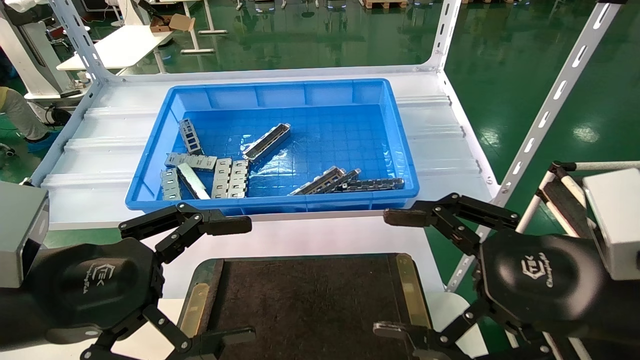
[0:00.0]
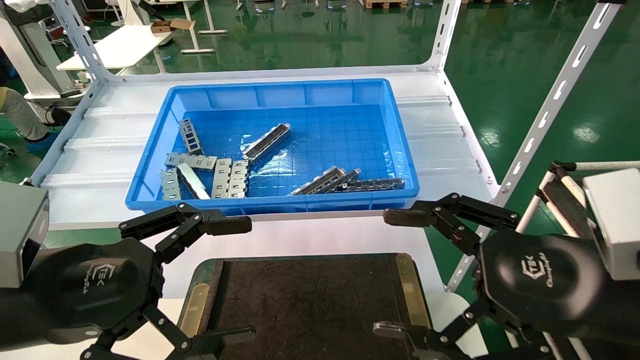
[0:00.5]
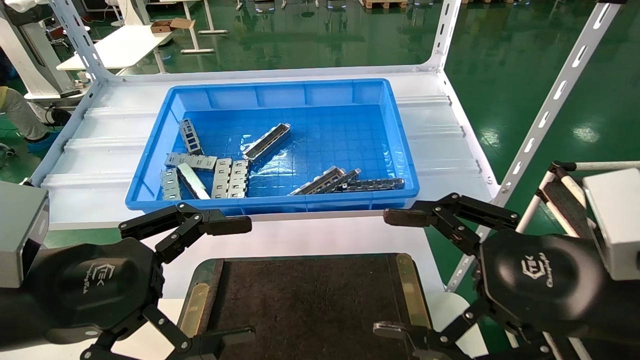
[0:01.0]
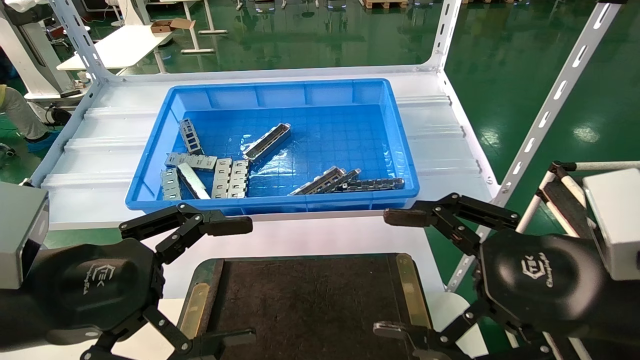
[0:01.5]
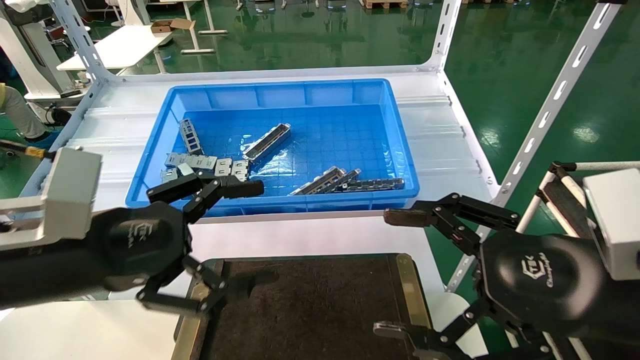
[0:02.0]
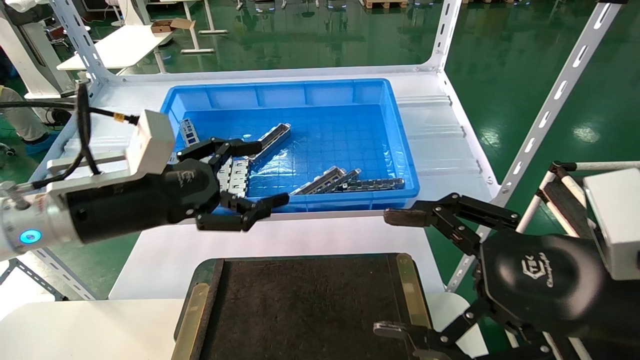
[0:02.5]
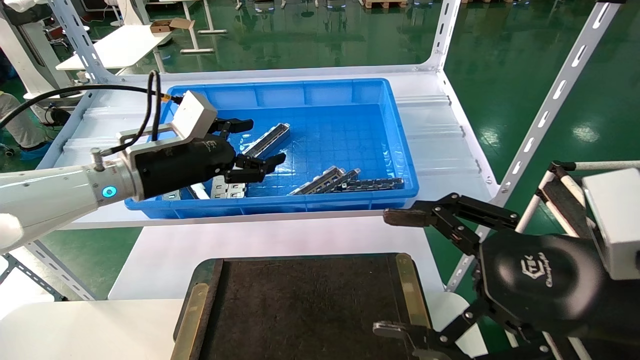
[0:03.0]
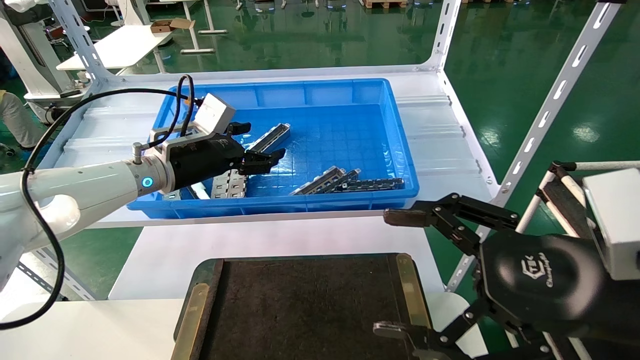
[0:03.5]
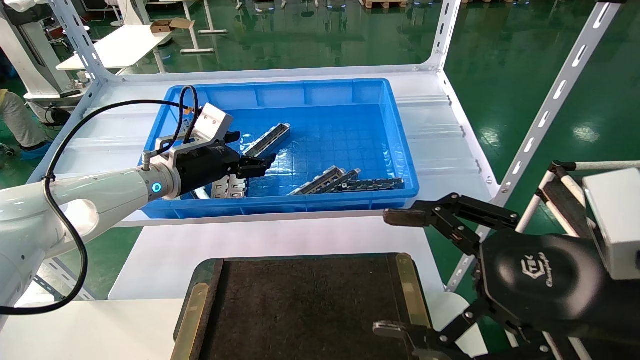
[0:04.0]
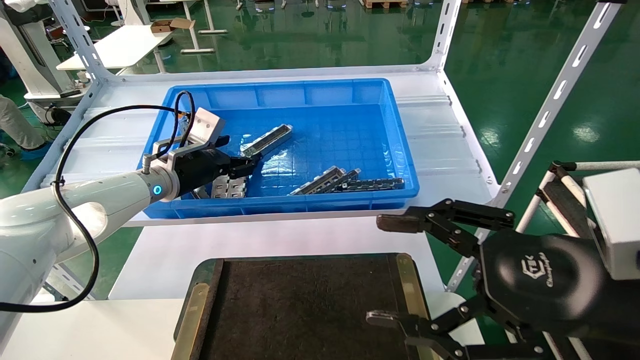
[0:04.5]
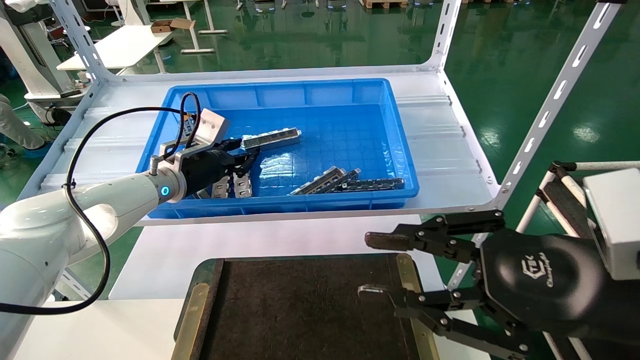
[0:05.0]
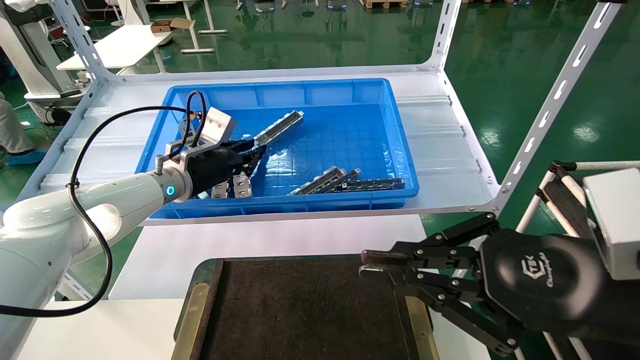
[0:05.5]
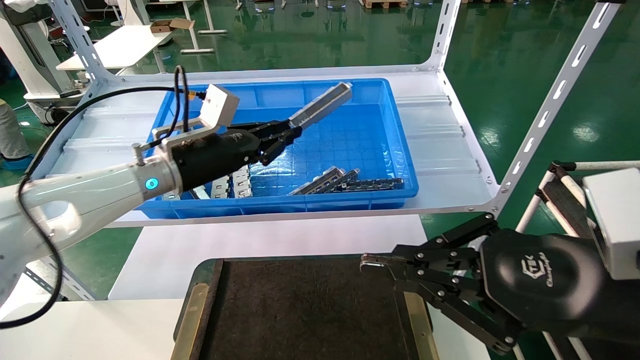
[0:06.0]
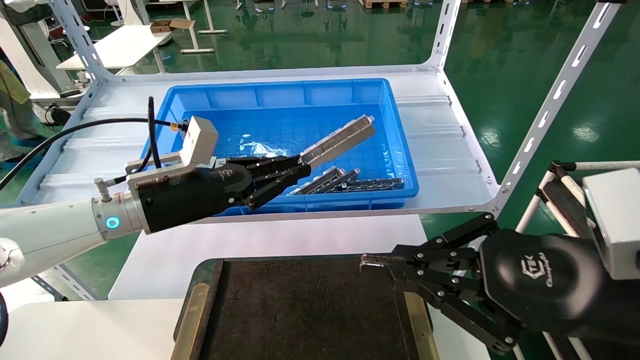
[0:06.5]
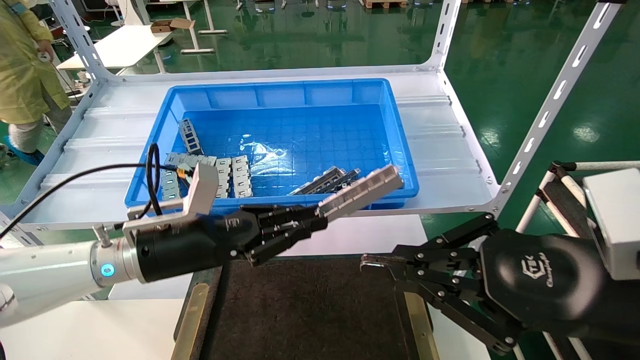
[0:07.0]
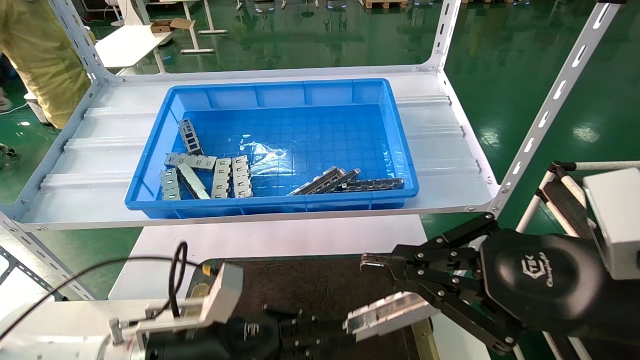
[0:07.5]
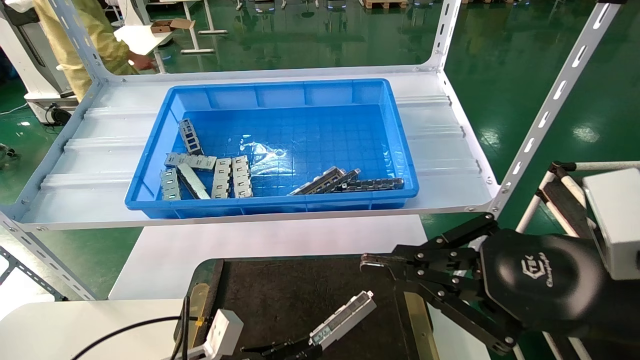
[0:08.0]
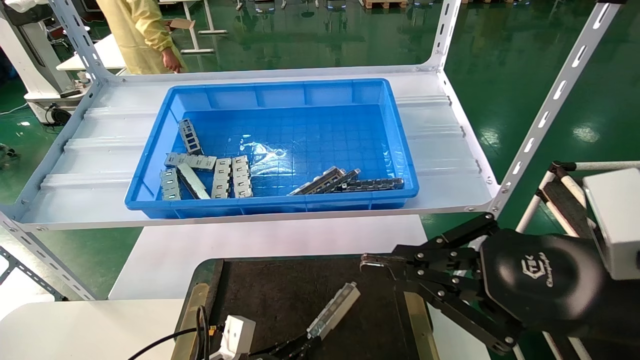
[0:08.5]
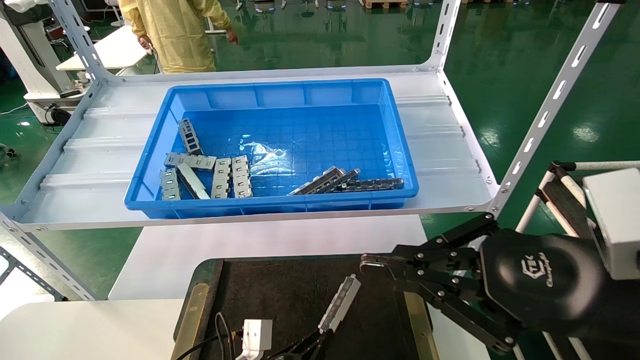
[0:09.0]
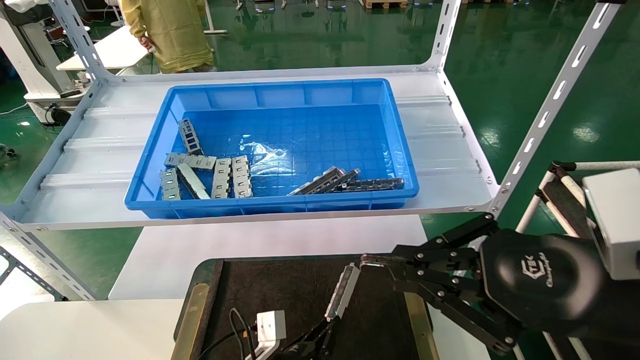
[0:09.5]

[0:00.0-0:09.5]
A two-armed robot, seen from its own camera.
Task of the whole recording: Grasp the part with one hand and place it on the black container.
Step, 0:02.5 to 0:06.5: Pick up the front USB bracket from the feeding area.
0:00.0 to 0:02.0: The grippers stay close to where they were, moving slightly.
0:02.0 to 0:04.0: The left gripper shifts roughly 25 cm forward.
0:04.0 to 0:05.5: The right gripper closes up; the left gripper closes its fingers.
0:05.5 to 0:07.5: The left gripper goes about 25 cm backward and downward.
0:07.5 to 0:09.5: The left gripper goes approximately 20 cm downward and to the right.

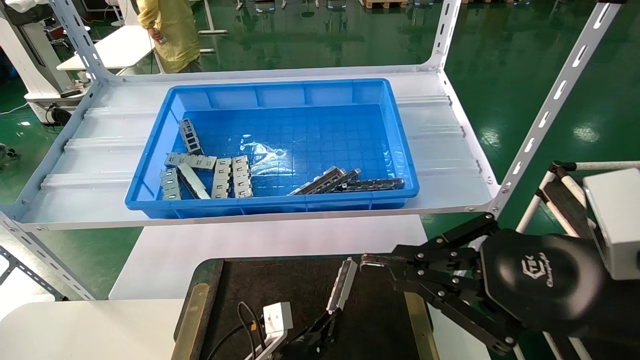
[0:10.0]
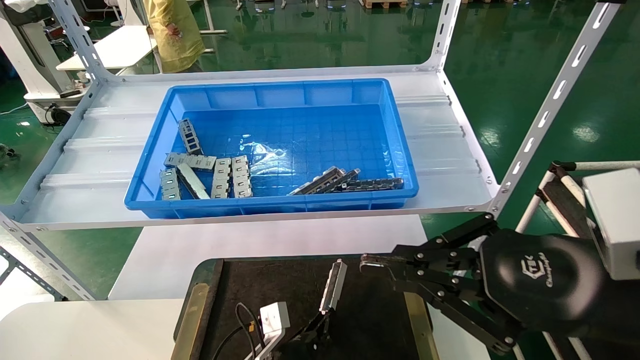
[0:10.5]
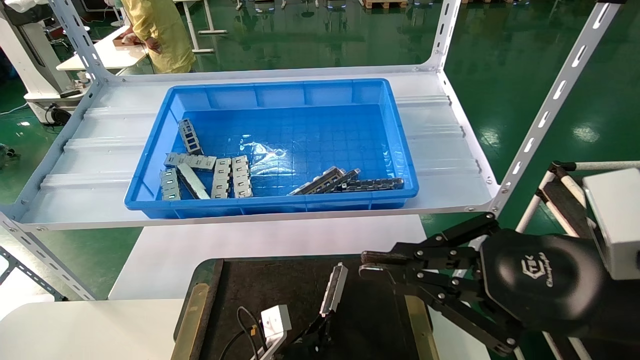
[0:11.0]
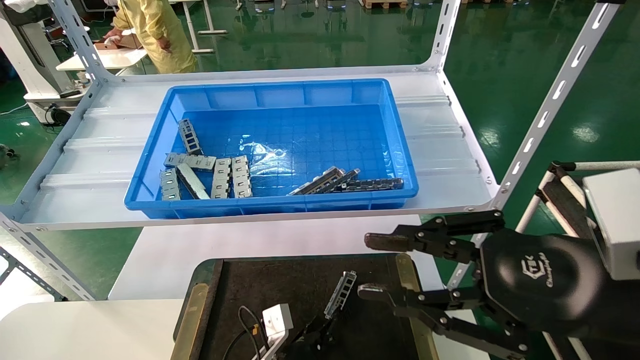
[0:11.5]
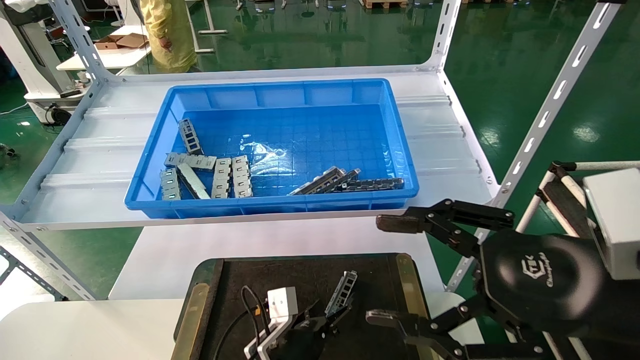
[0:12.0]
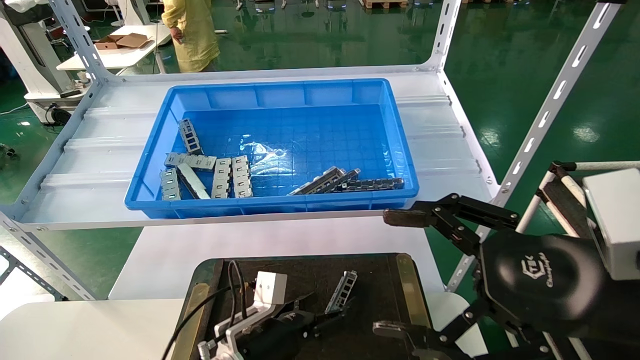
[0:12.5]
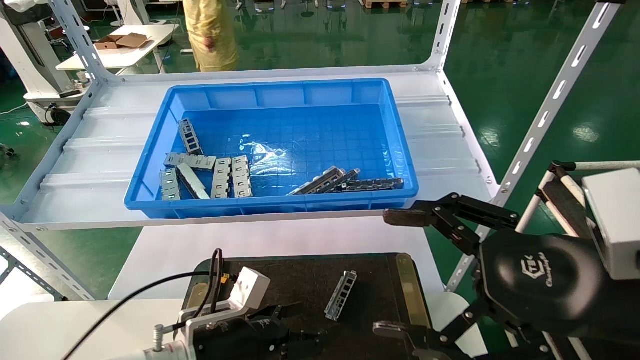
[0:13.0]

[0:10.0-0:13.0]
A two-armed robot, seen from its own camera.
Task of the whole recording: Grasp the part with one hand and place it on the black container.
0:10.0 to 0:11.5: There are only small adjustments of the grippers.
0:11.5 to 0:13.0: The right gripper opens up. Meanwhile the left gripper travels upward, to the left and backward by approximately 15 cm, and opens its fingers.

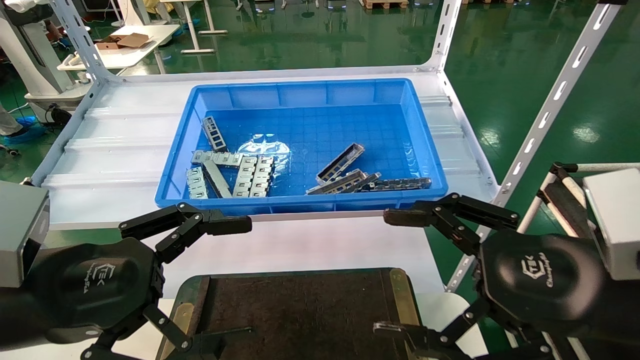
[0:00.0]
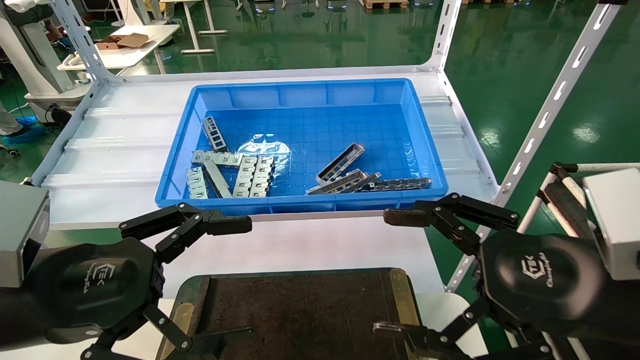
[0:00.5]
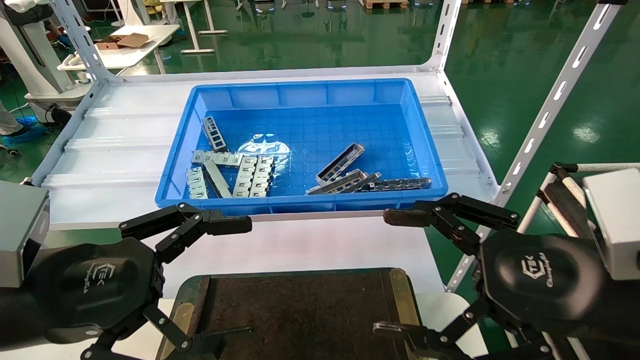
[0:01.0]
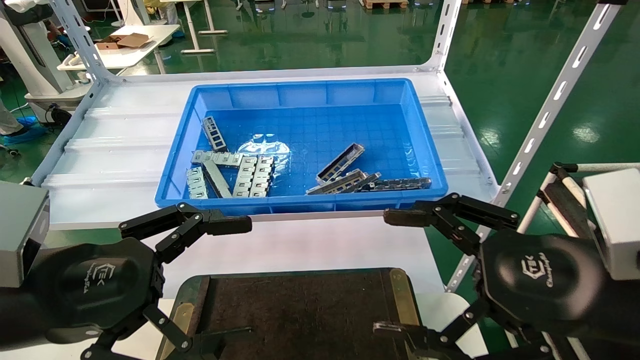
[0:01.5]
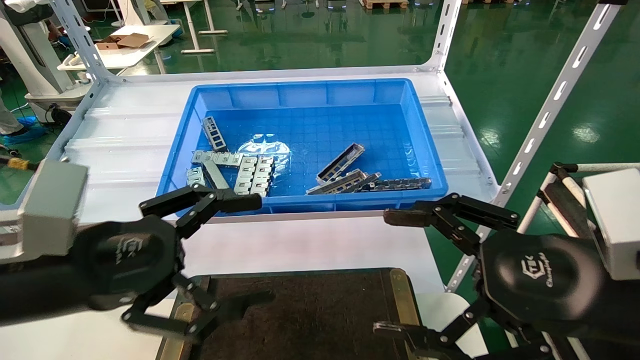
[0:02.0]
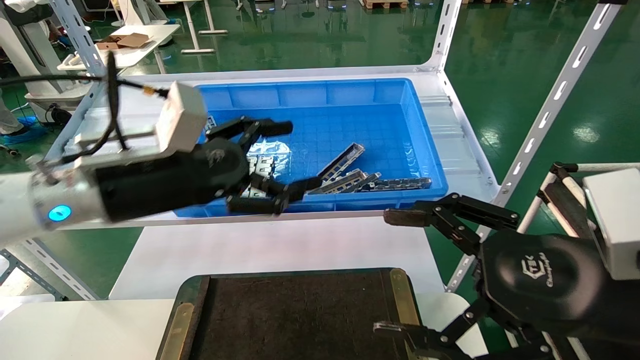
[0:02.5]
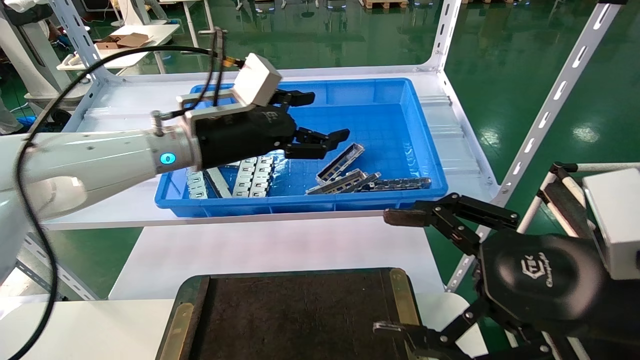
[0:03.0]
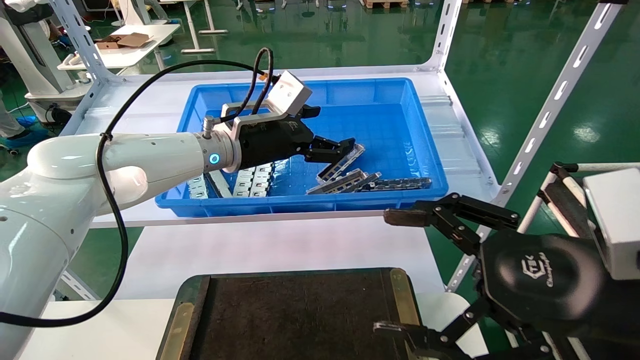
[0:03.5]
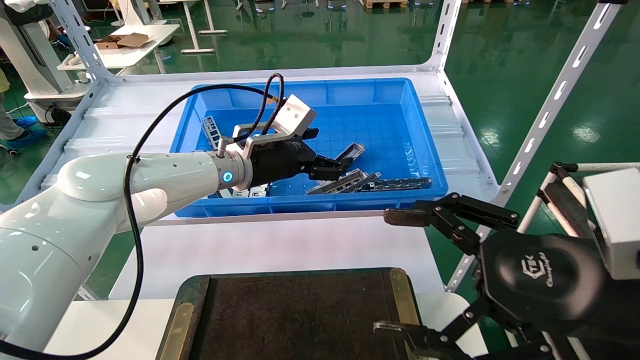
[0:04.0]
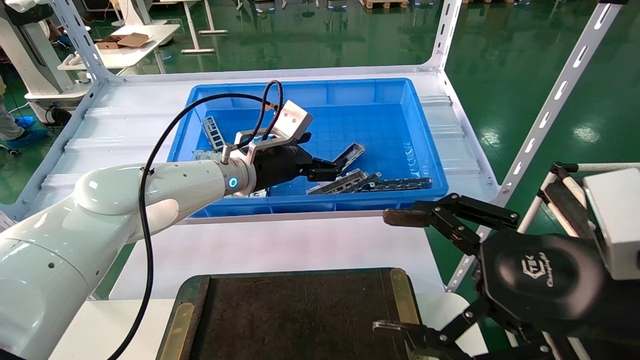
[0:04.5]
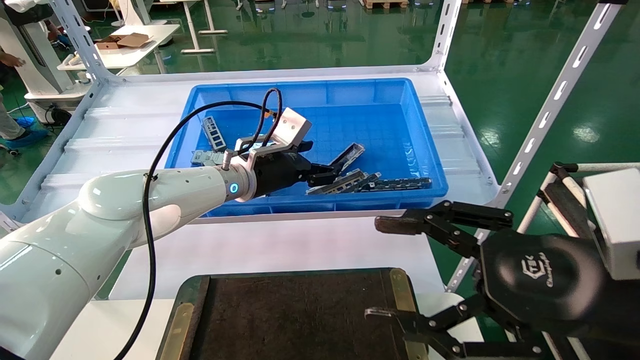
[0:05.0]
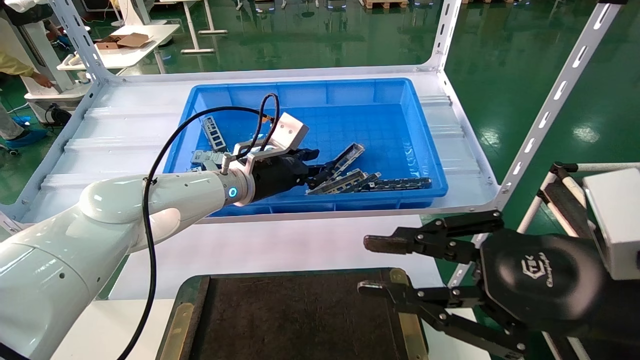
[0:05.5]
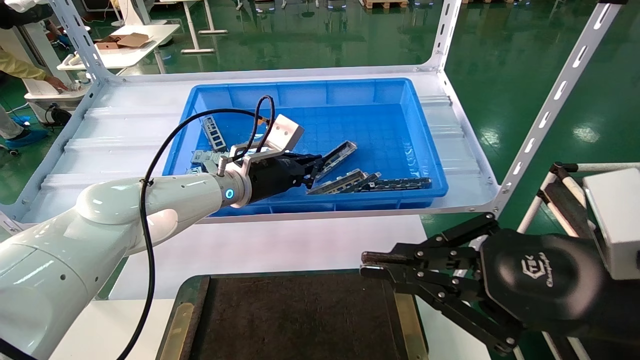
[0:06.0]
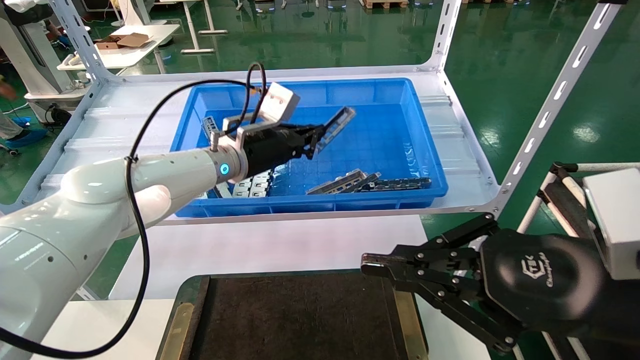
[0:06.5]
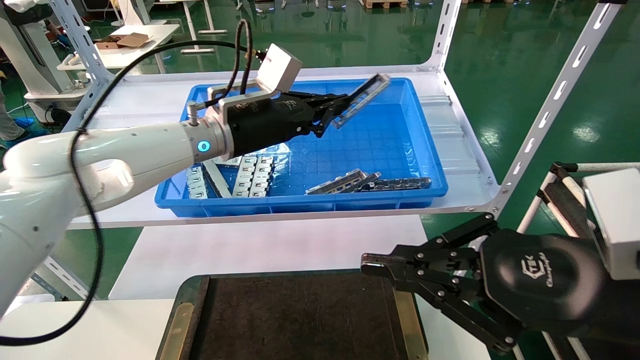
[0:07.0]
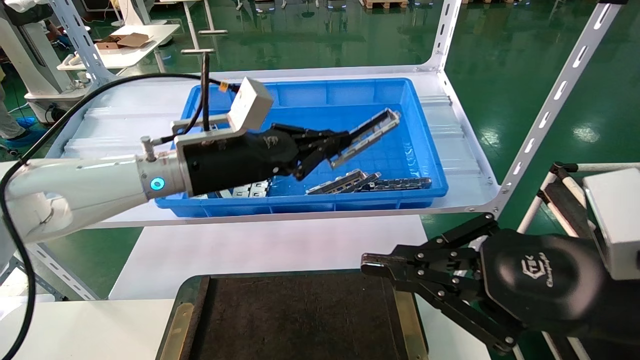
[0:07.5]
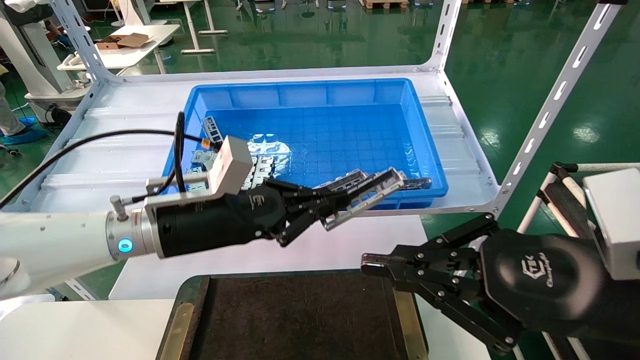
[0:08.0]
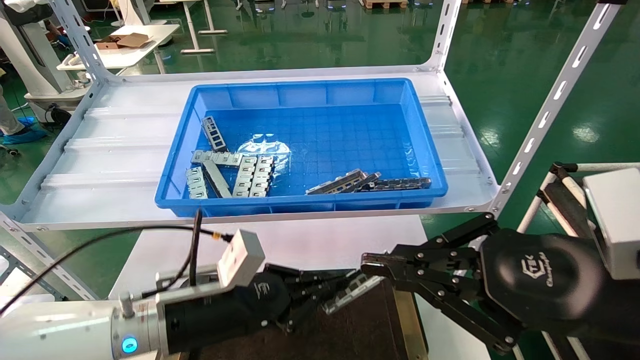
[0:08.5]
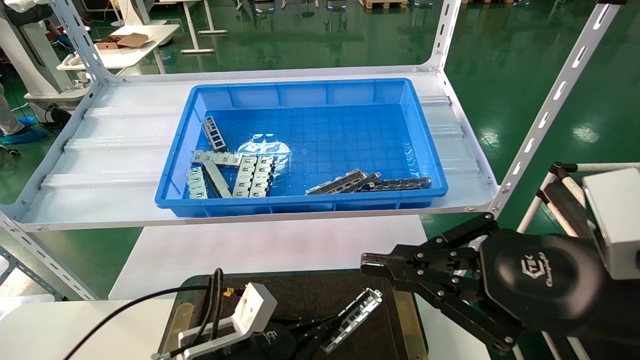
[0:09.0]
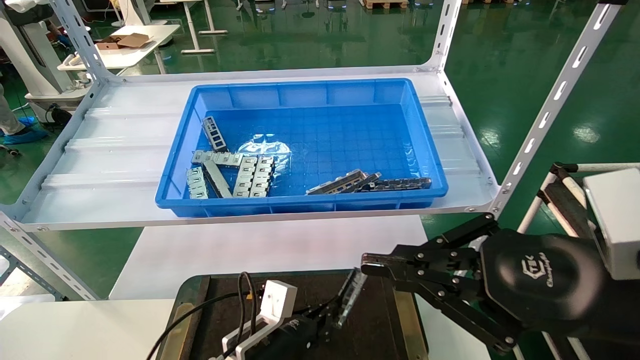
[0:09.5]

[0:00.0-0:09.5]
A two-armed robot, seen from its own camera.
Task of the whole recording: Grasp the part with one hand and place it on the black container.
Step, 0:02.0 to 0:05.5: Pick up the front USB bracket from the feeding area.
0:00.0 to 0:02.0: There are only small adjustments of the grippers.
0:02.0 to 0:04.0: The left gripper goes about 30 cm forward and to the right.
0:04.0 to 0:05.5: The right gripper closes its fingers, while the left gripper closes up.
0:05.5 to 0:07.5: The left gripper goes some 10 cm backward, and closes its fingers, while the right gripper closes its fingers.
0:07.5 to 0:09.5: The left gripper is displaced downward by roughly 30 cm.
